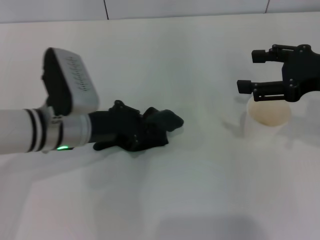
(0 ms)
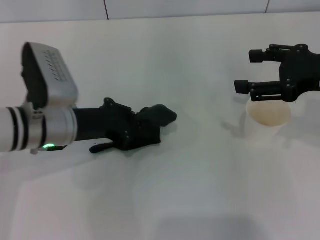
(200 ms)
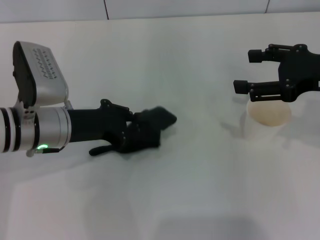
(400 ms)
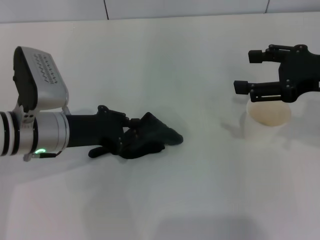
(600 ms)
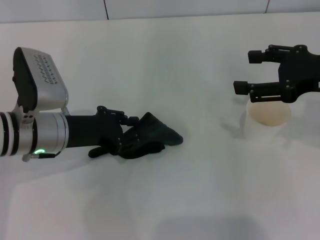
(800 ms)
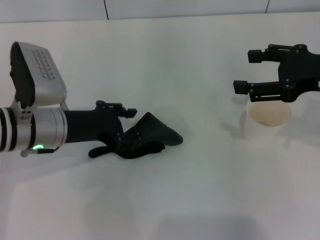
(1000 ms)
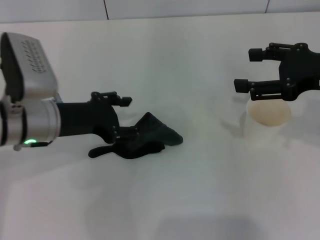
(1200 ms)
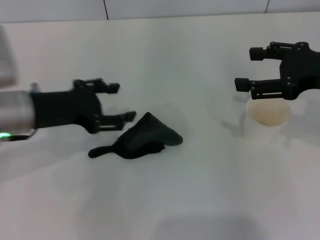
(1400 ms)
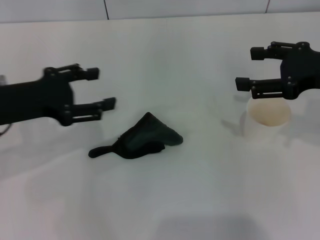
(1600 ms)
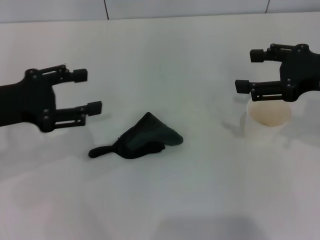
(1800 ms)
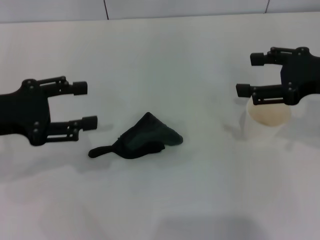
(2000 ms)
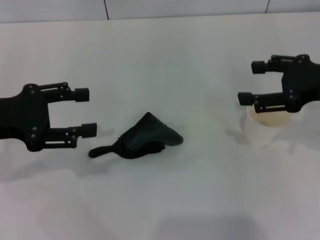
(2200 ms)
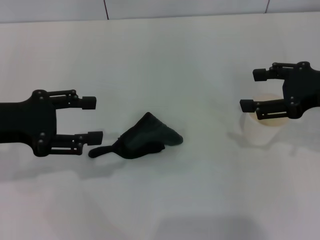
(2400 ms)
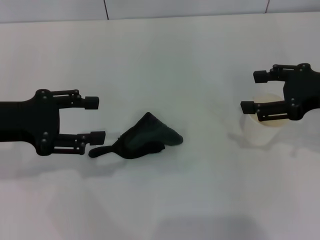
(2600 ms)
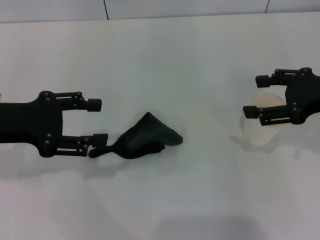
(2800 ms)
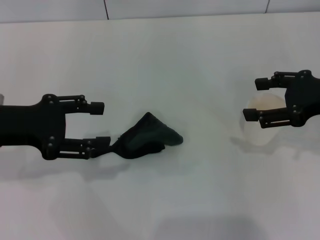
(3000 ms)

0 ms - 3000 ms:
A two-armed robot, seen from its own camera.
Step, 400 ms - 1200 ms: Place the rag on the table with the left gripper.
0 ms - 1600 ms: The left gripper is displaced to the left and upward by some 10 cm, and opens.
1600 ms - 3000 ms: There are only small adjustments of the grippers.
